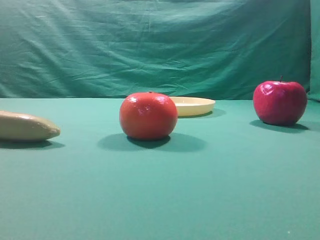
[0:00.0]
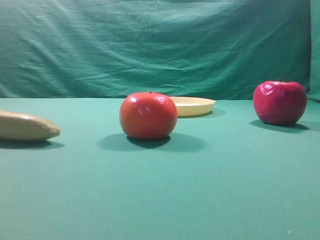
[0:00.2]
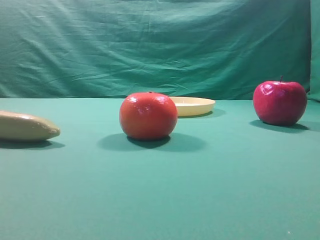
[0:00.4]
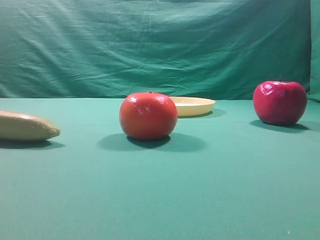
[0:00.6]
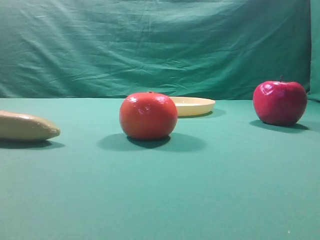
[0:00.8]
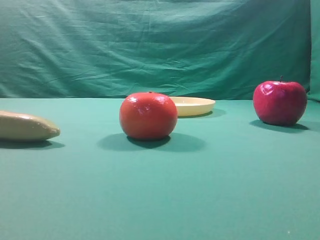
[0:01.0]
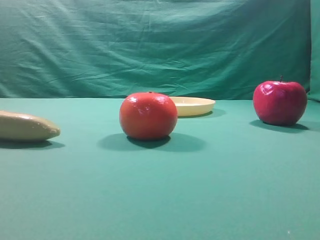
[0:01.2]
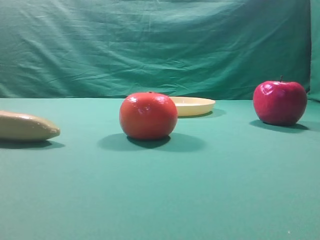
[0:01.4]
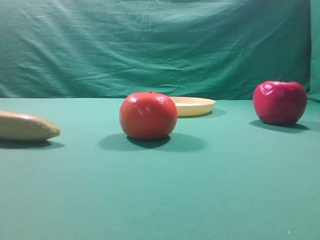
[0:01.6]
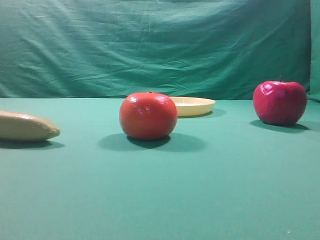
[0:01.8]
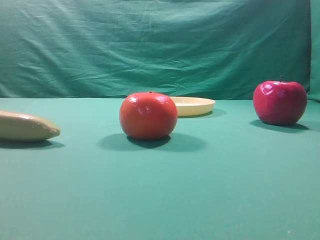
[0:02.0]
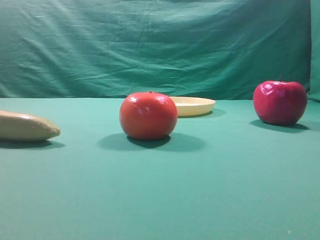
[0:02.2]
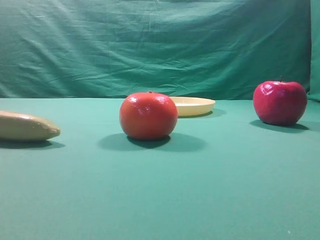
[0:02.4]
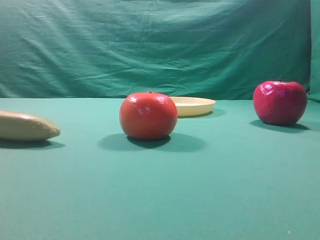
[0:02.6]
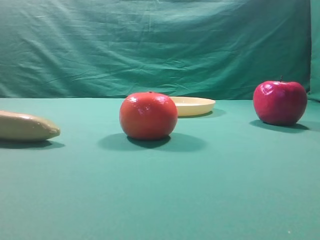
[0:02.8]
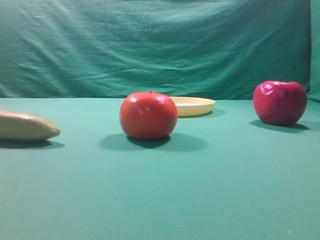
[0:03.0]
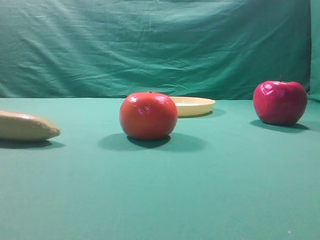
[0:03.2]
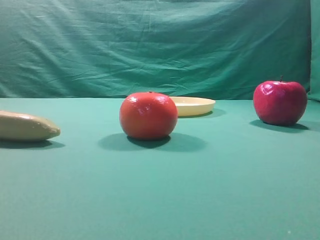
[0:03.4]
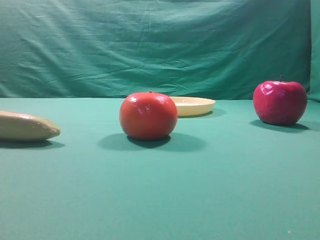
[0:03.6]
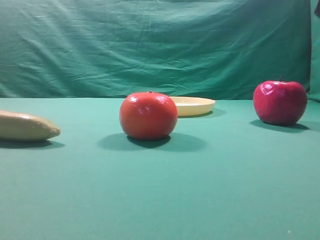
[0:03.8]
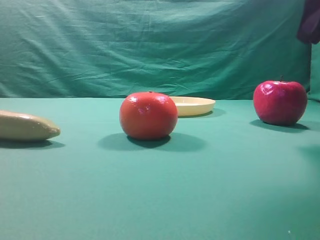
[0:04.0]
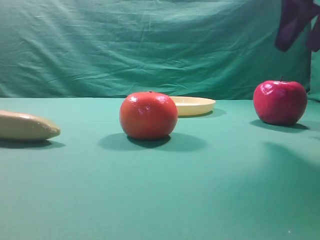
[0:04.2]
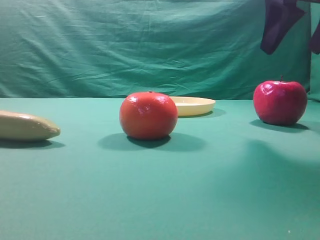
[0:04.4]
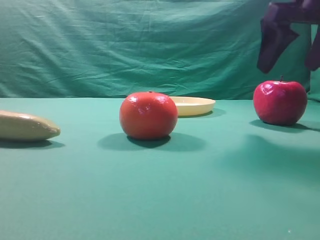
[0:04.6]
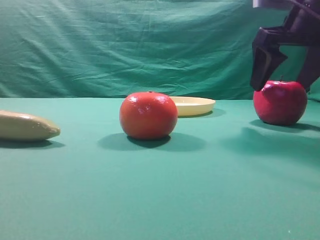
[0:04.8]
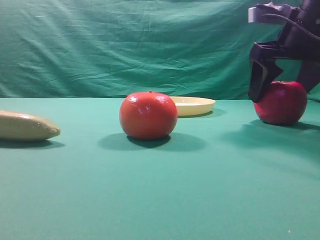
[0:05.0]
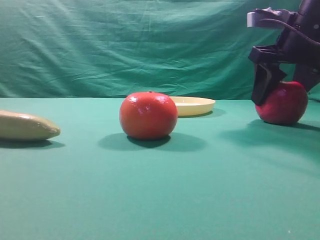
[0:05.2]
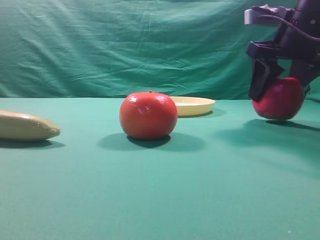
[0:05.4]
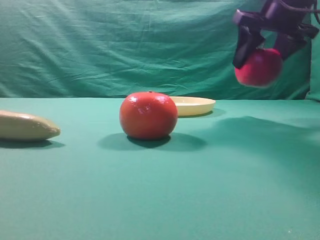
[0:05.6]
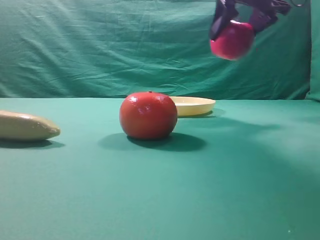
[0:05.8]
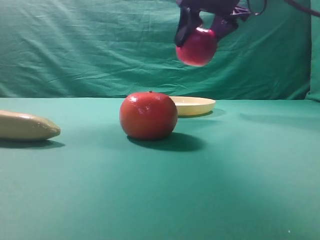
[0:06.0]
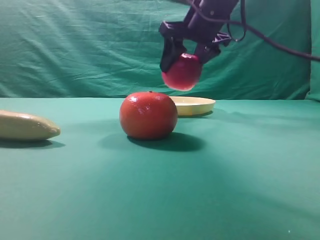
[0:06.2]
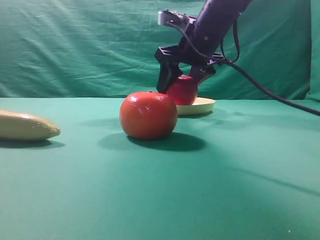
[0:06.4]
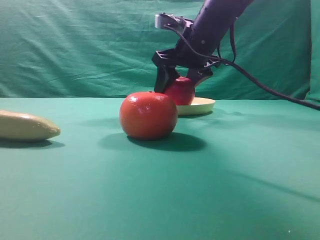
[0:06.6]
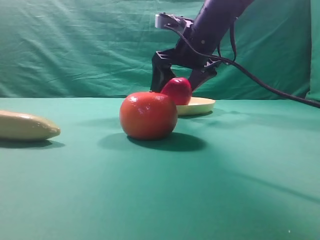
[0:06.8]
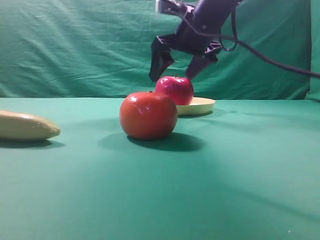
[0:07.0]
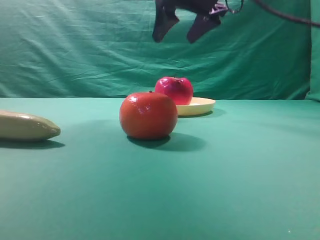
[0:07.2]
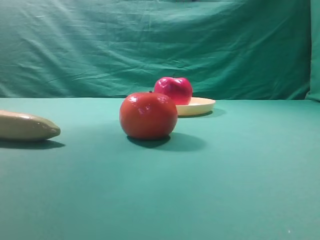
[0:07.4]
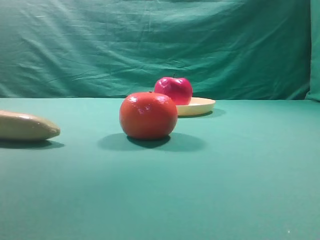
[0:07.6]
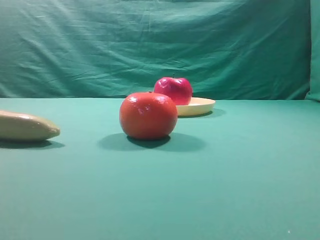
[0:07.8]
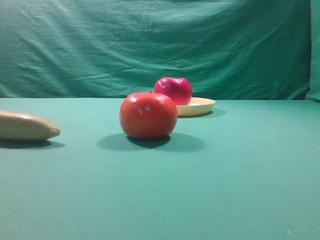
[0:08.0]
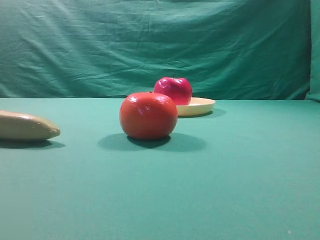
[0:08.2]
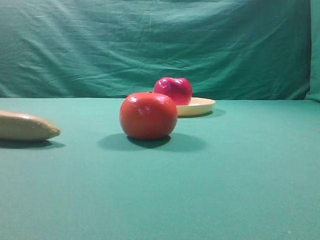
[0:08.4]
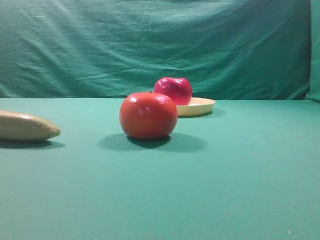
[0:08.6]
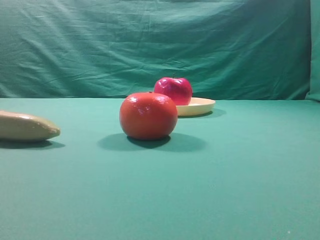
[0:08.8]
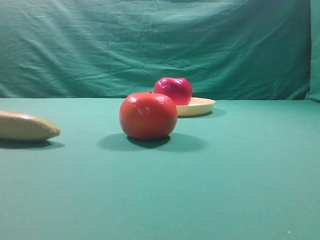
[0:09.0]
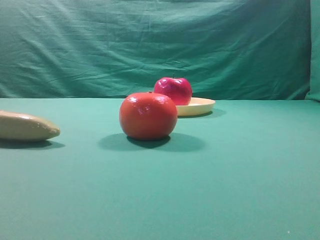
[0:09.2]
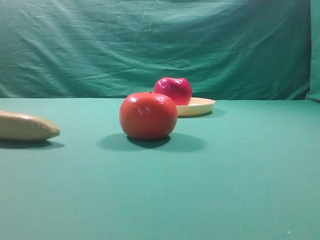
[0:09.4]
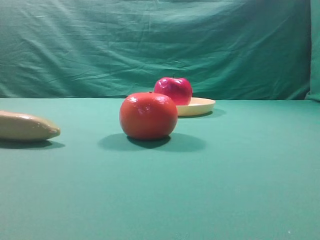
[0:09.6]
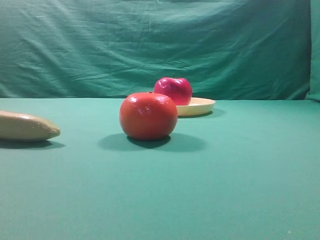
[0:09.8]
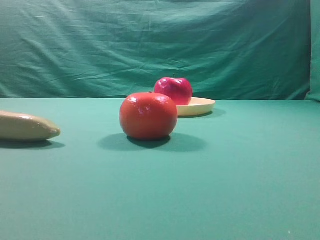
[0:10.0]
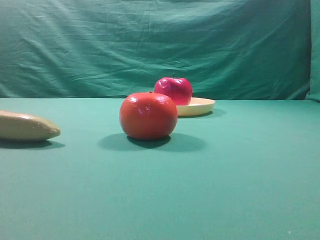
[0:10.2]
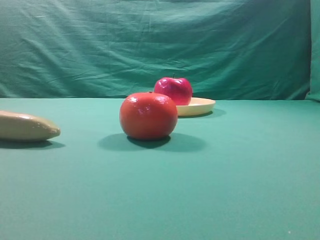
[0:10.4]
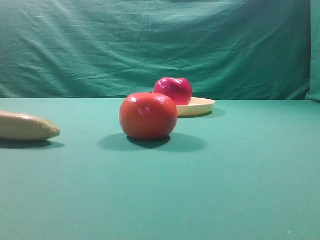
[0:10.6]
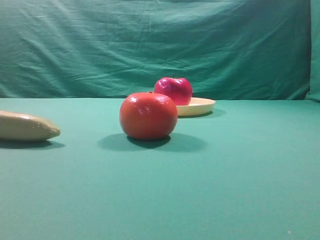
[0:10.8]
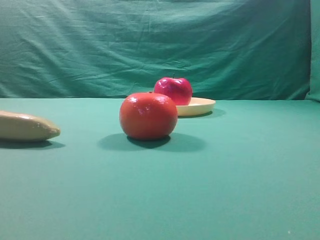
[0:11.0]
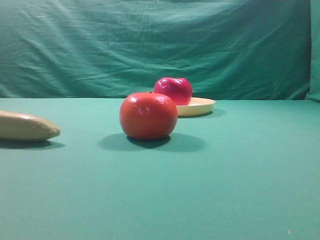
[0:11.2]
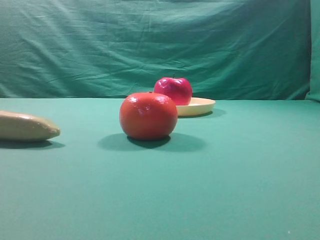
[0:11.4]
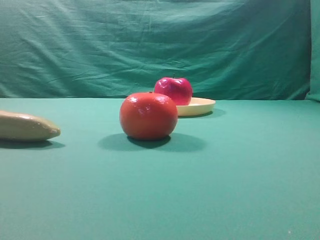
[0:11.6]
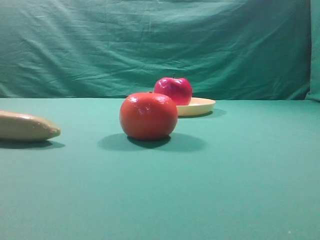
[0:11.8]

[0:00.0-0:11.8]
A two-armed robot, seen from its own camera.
Task of the whole recording: grasp the apple and place it into the yellow plate.
Step, 0:00.0 to 0:05.4: Grasp the fruit that can keep the doctor away.
Step, 0:05.6 to 0:07.0: Place the picked object into the yellow plate.

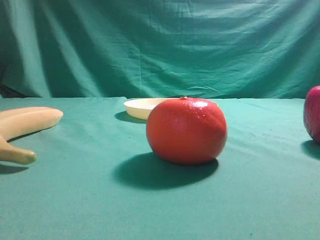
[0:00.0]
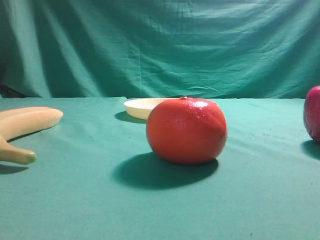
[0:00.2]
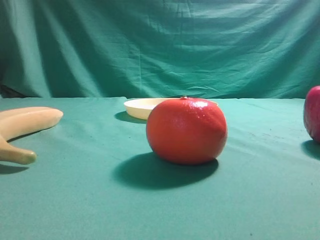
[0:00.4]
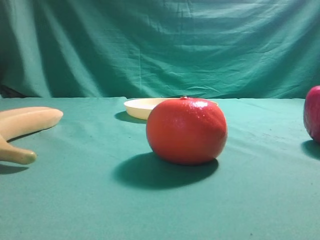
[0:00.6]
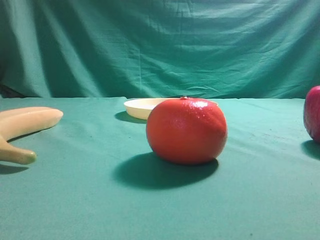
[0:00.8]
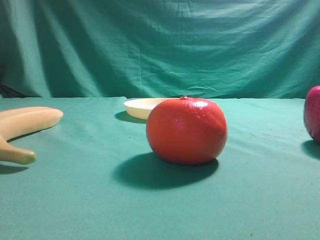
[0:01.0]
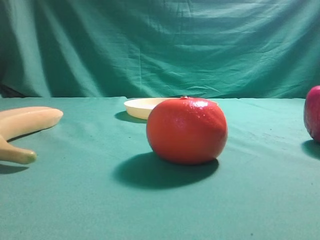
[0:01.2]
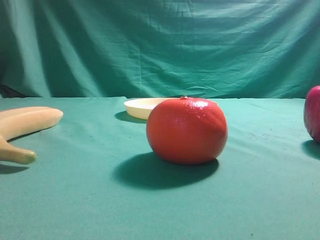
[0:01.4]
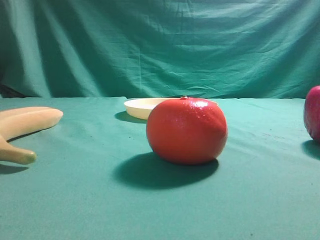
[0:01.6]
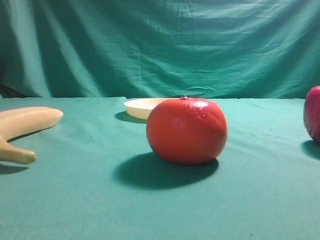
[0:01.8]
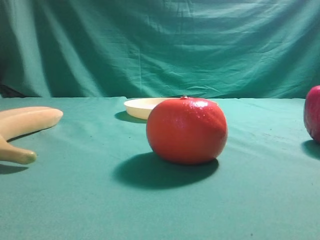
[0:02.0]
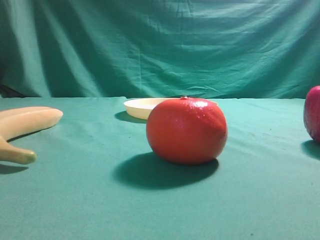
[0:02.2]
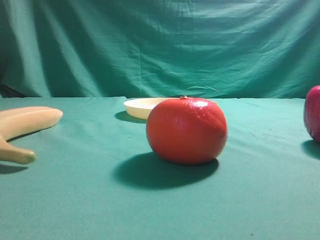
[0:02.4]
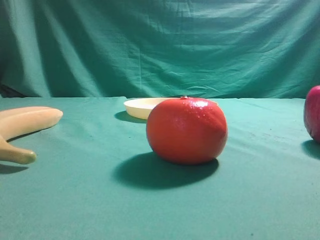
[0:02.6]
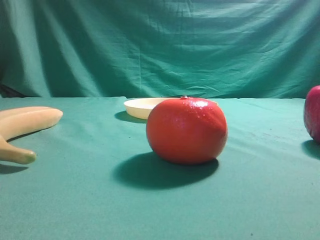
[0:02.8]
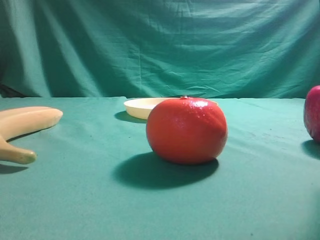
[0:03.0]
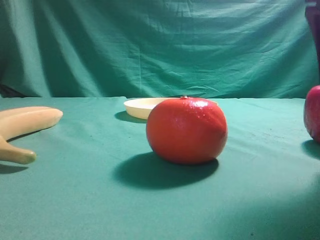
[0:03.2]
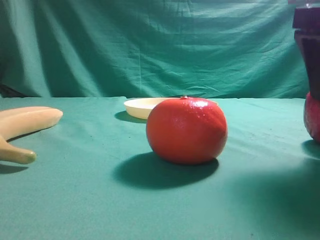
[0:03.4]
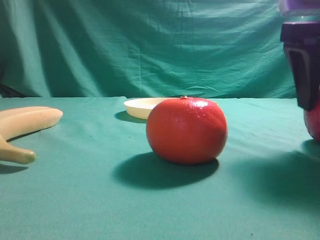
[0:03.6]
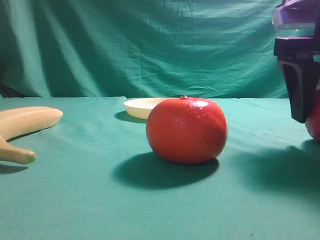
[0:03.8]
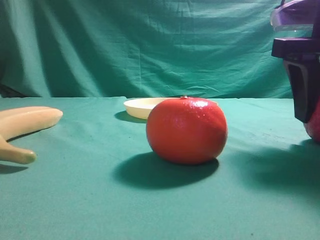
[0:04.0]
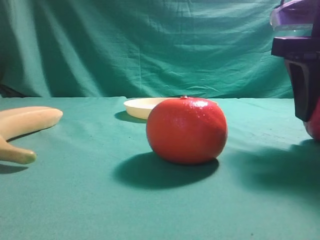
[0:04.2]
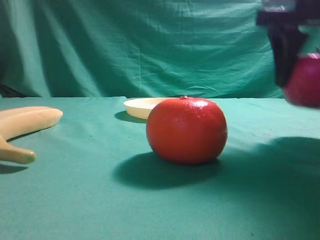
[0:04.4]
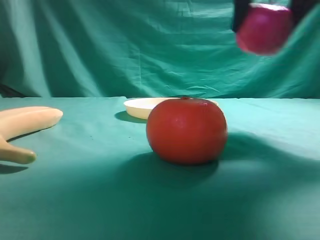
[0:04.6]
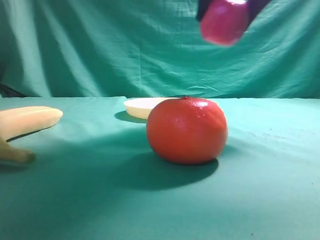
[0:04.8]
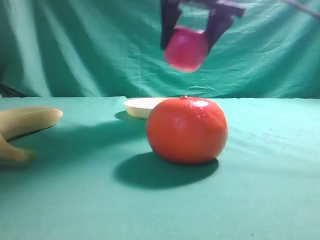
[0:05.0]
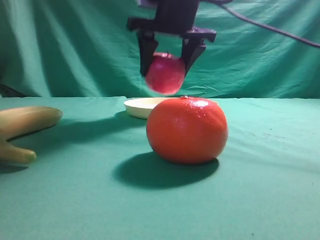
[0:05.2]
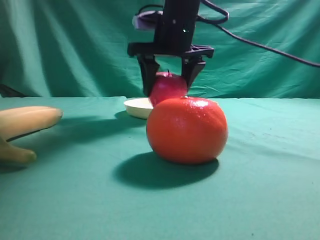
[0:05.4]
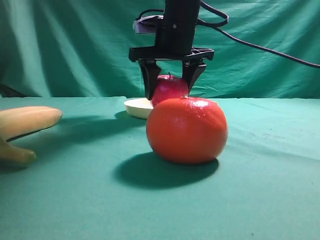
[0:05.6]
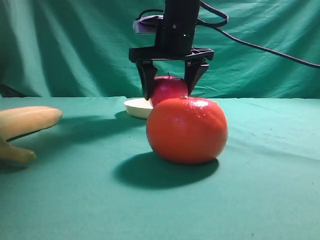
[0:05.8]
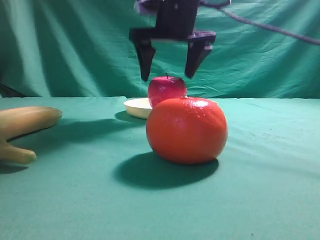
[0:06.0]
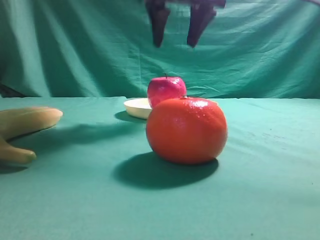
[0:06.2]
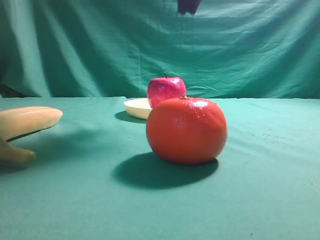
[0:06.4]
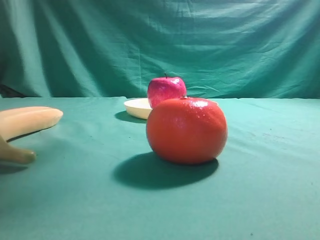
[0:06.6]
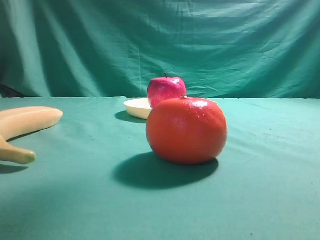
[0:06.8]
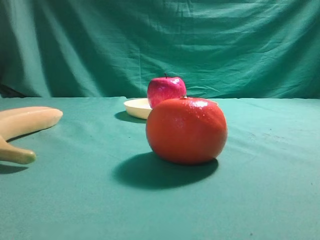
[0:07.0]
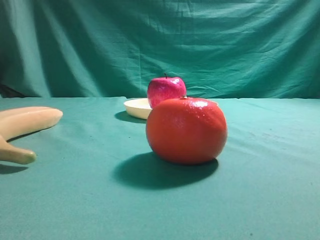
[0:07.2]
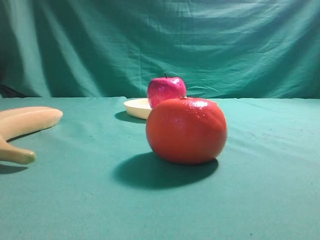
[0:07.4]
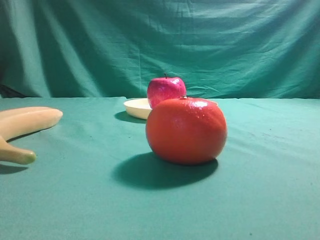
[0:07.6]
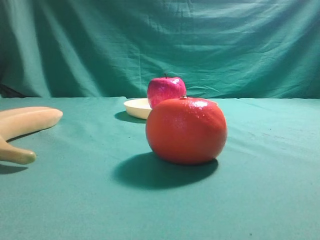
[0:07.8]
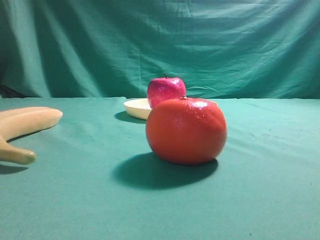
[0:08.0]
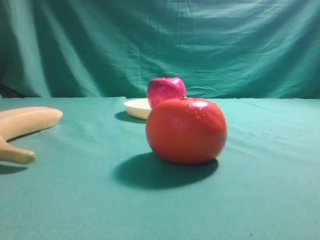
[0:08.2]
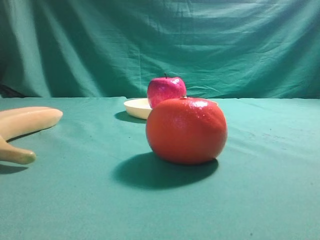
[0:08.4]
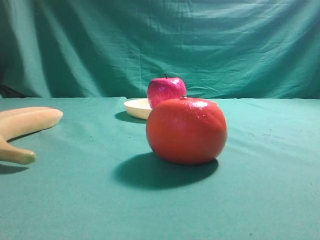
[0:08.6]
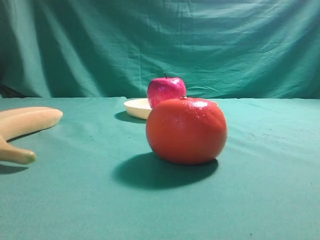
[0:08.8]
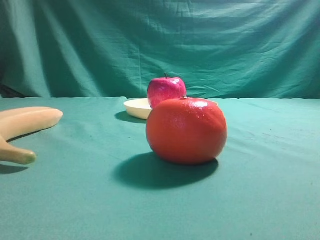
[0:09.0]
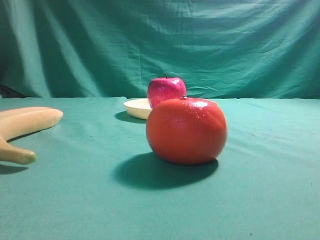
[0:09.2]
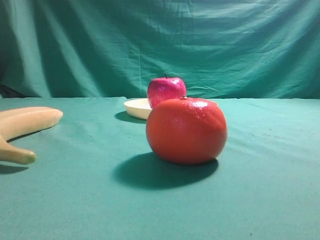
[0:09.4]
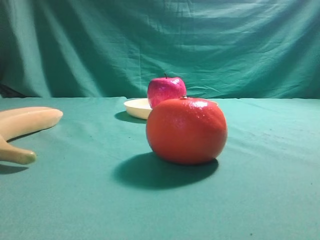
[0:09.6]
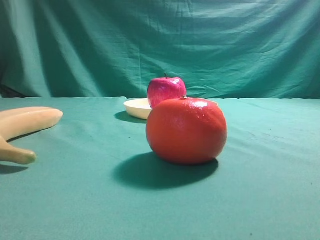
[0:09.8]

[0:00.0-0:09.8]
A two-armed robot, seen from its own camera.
Task of the whole recording: grasp the apple and place it into the yellow plate.
Step, 0:00.0 to 0:04.2: Grasp the fruit that can keep the doctor away.
Step, 0:04.6 to 0:06.0: Place the picked object into the yellow plate.
